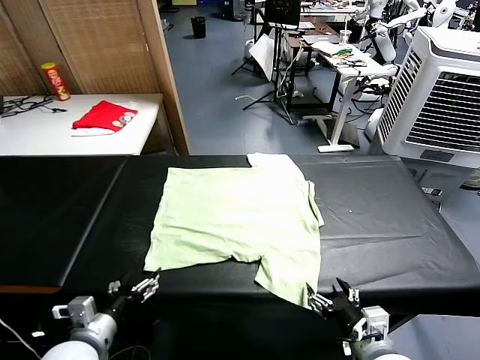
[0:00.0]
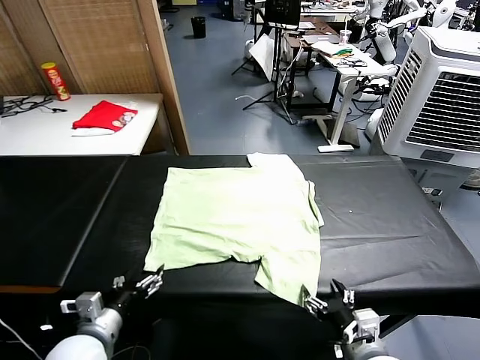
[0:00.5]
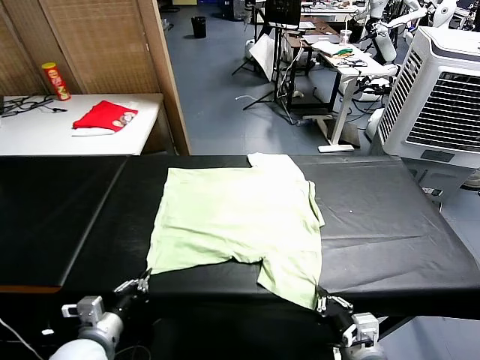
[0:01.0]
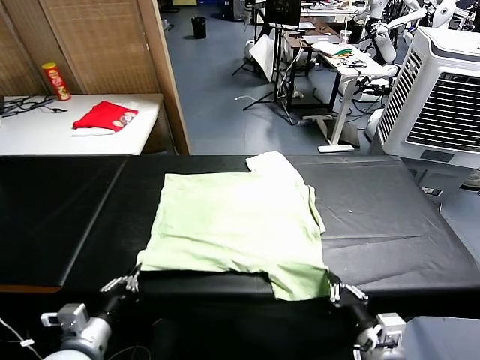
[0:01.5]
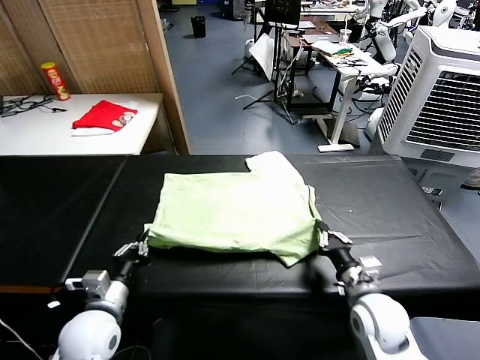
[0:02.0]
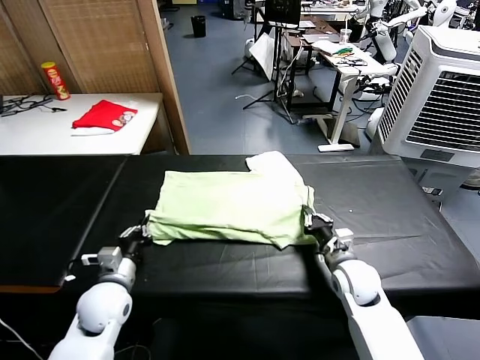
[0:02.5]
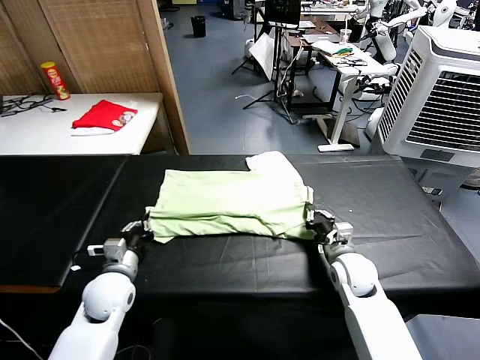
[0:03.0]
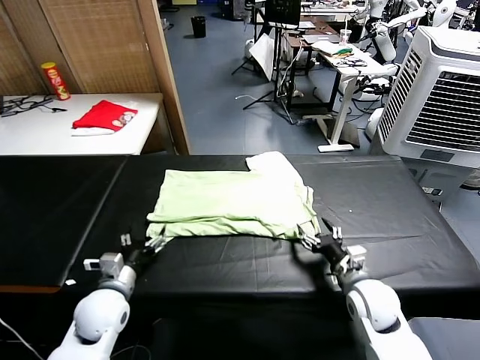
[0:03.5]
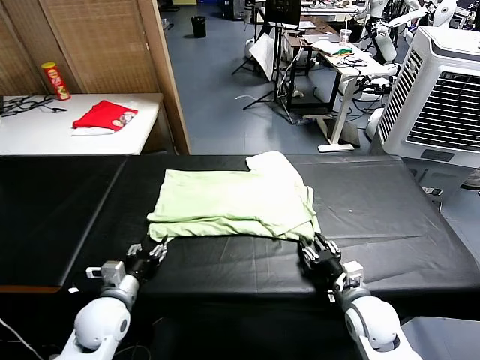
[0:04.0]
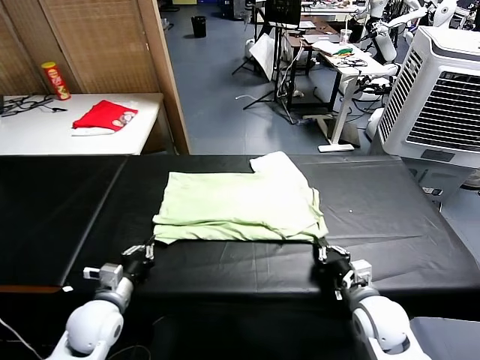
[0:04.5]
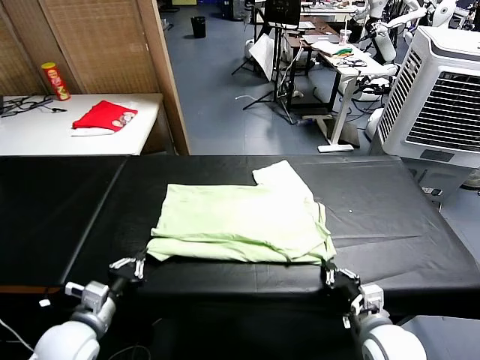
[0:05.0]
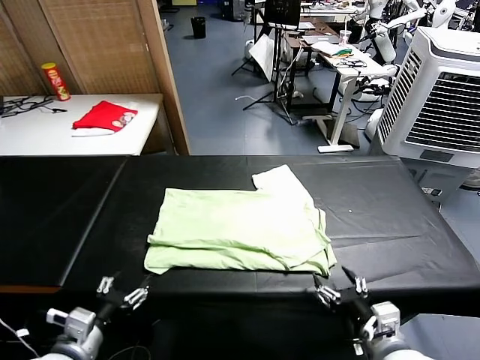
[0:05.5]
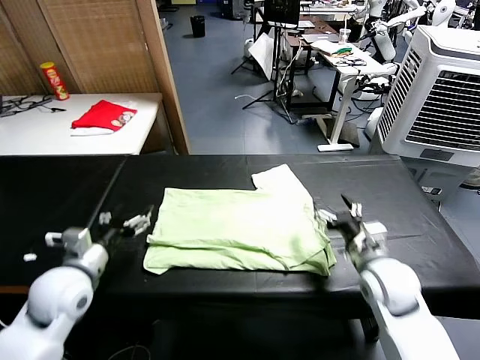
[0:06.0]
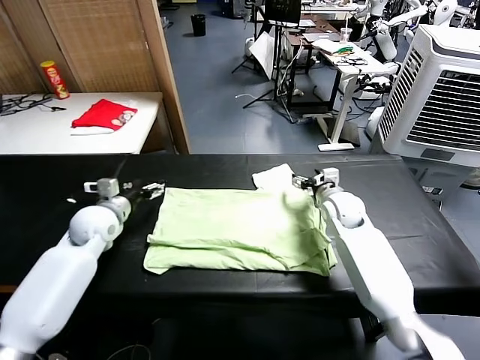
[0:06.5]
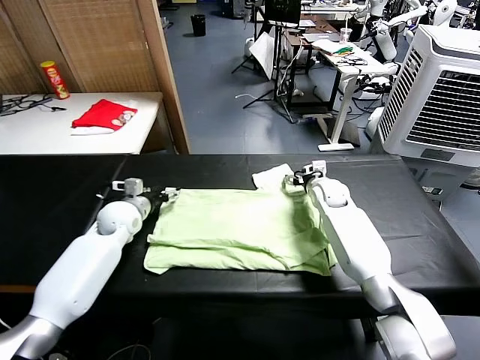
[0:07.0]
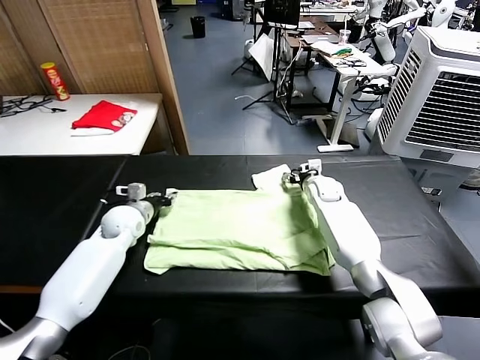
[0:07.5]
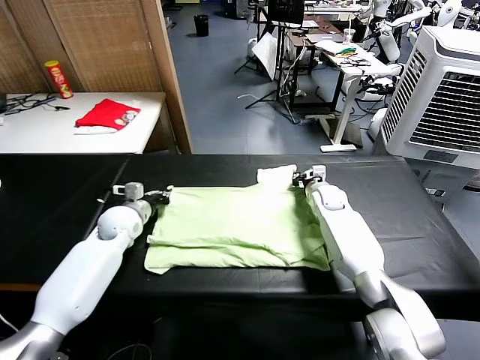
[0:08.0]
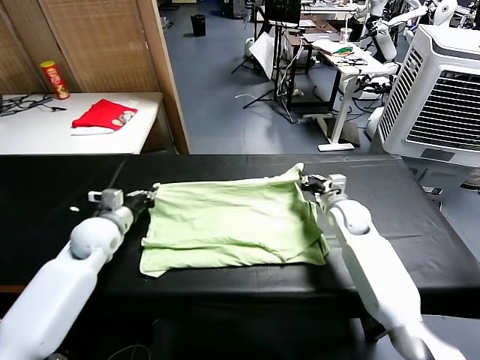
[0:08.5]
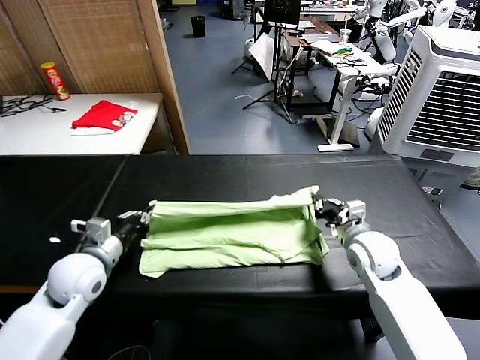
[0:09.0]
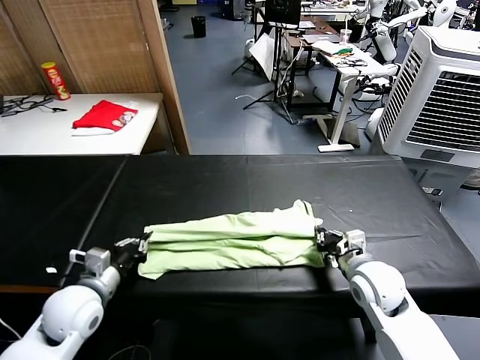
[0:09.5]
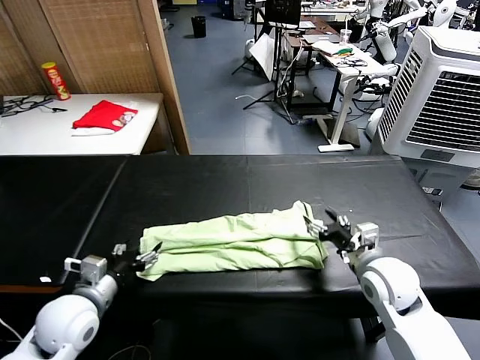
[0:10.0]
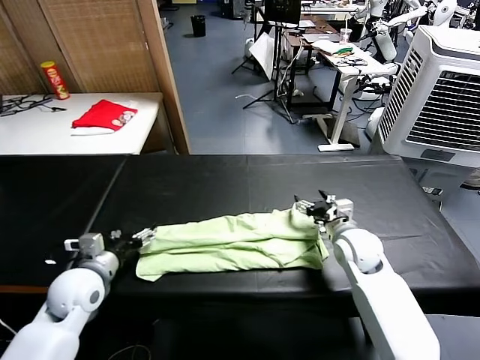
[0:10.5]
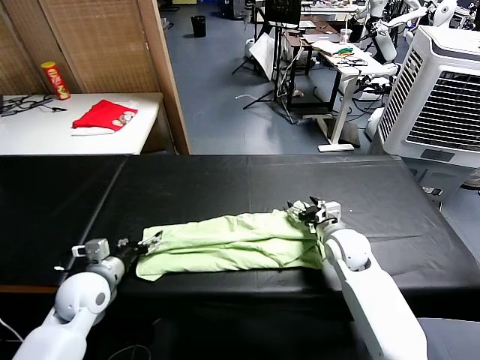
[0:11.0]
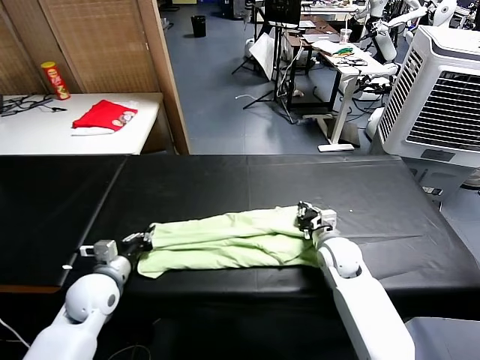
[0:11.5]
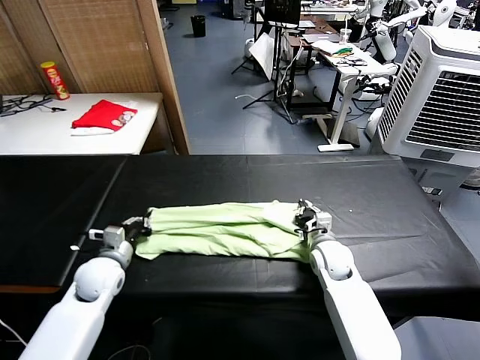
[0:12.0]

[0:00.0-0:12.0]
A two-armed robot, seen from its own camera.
Task of the whole recording: fold and organize the clothes.
Step, 0:00.0 to 0:01.0: use both grippers simultaneously to clamp the lower edge of the clothing fabric.
Step, 0:01.5 to 0:03.0: use both grippers to drag the lower edge of the fabric forward and fold it over the upper edge.
Step, 0:03.5 to 0:05.5: Drag the clothes downward with both gripper.
Step, 0:06.0 to 0:07.5: use both grippers simultaneously to clamp the upper edge of the clothing fabric.
Step, 0:08.0 to 0:10.0: use both grippers to drag the upper edge of the fabric backward and fold it over the lower edge.
0:02.0 to 0:04.0: The right gripper goes approximately 5 cm backward, and opens, then closes again, while the left gripper opens up.
0:04.0 to 0:06.0: The right gripper heads forward and upward, covering approximately 15 cm, and opens; the left gripper travels upward by some 10 cm, goes backward and returns, roughly 10 cm each way, and opens its fingers.
0:06.0 to 0:08.0: The right gripper heads forward and downward, covering some 15 cm, and closes; the left gripper moves forward, about 15 cm, and closes.
0:08.0 to 0:10.0: Both grippers move backward, some 20 cm. The left gripper opens. The right gripper opens its fingers.
0:10.0 to 0:12.0: The right gripper travels downward, forward and to the left by roughly 15 cm, and closes up, while the left gripper moves forward and downward, about 15 cm, and closes its fingers.

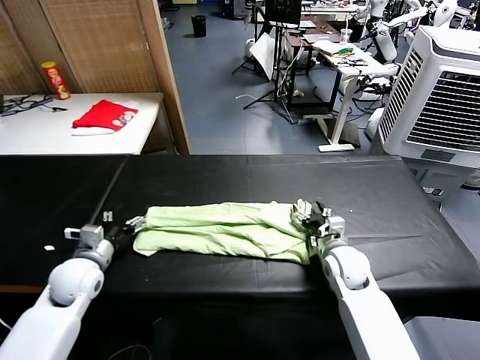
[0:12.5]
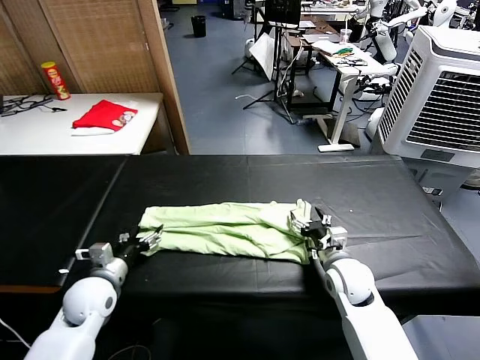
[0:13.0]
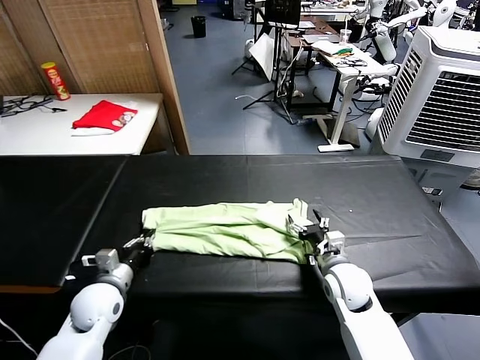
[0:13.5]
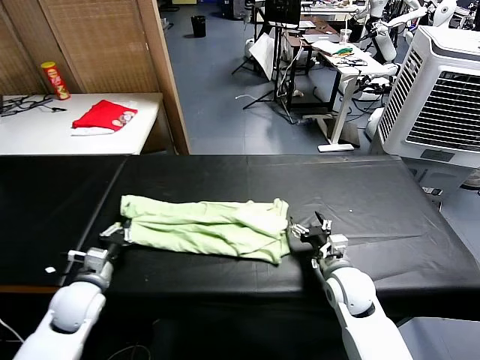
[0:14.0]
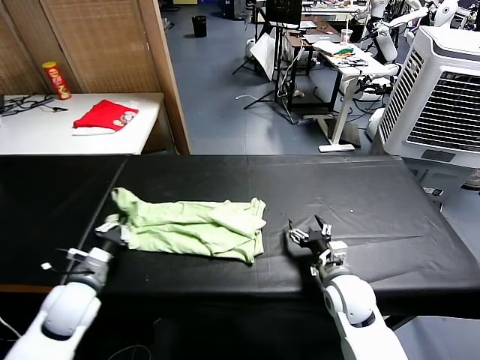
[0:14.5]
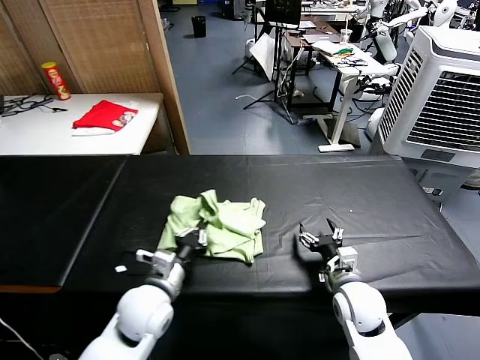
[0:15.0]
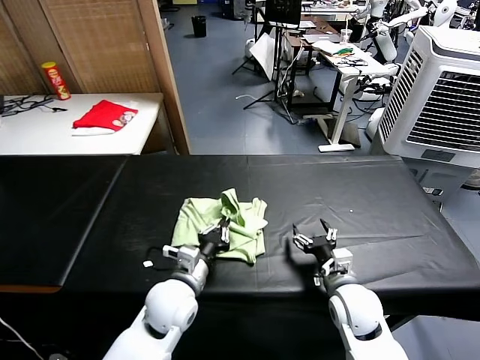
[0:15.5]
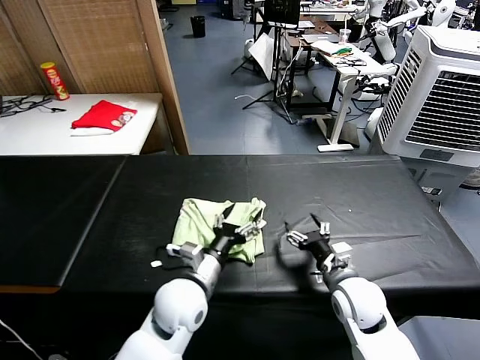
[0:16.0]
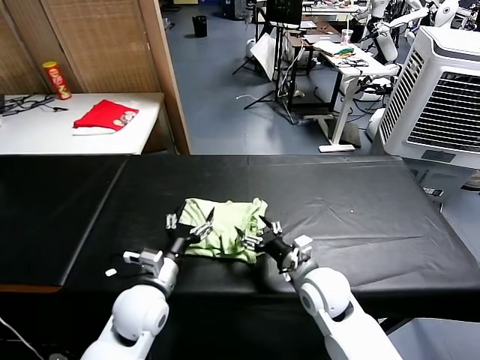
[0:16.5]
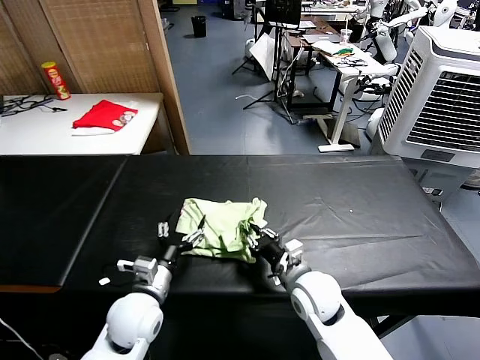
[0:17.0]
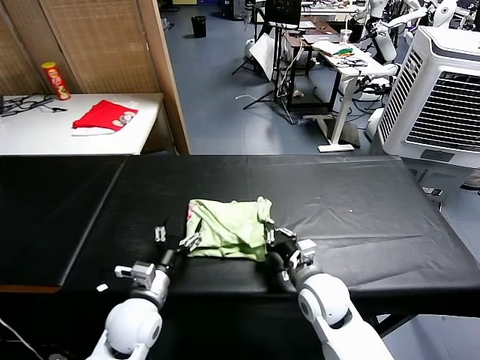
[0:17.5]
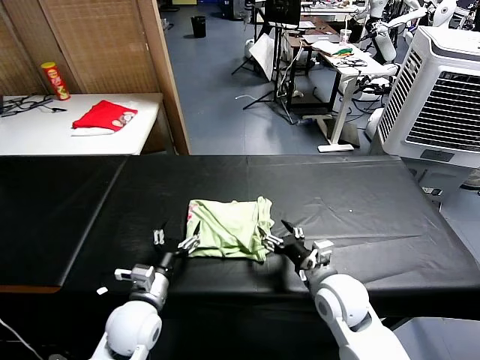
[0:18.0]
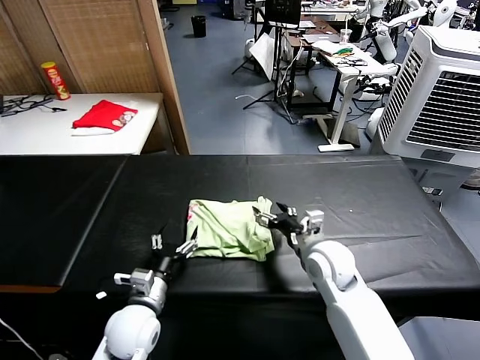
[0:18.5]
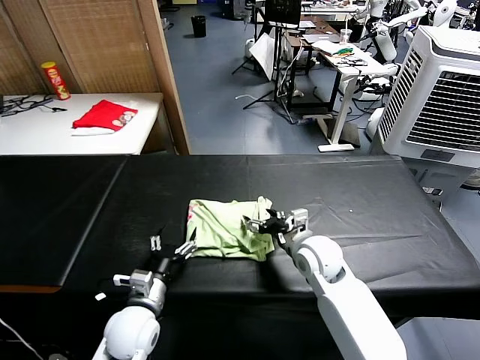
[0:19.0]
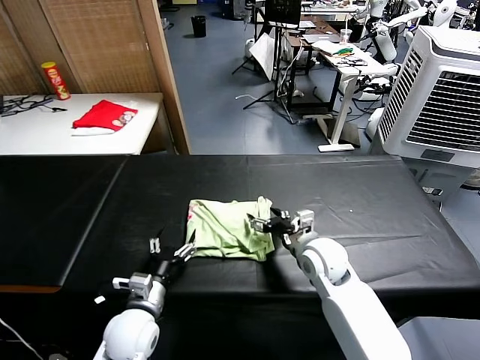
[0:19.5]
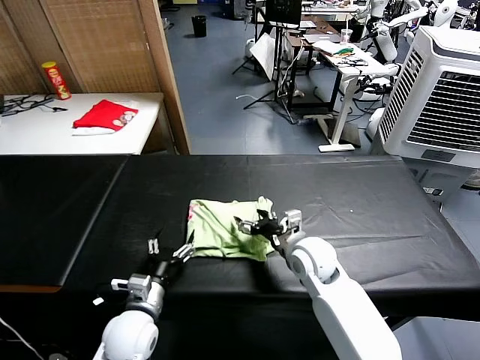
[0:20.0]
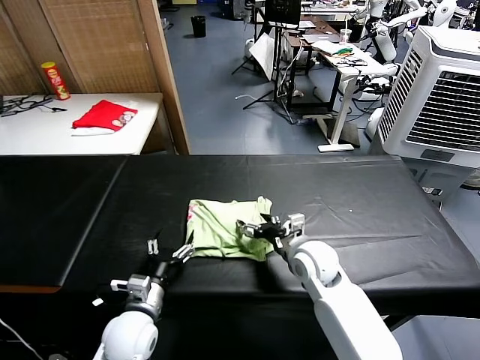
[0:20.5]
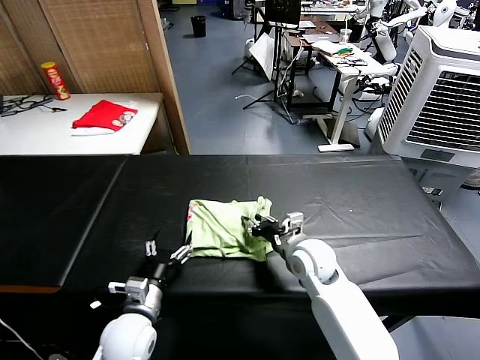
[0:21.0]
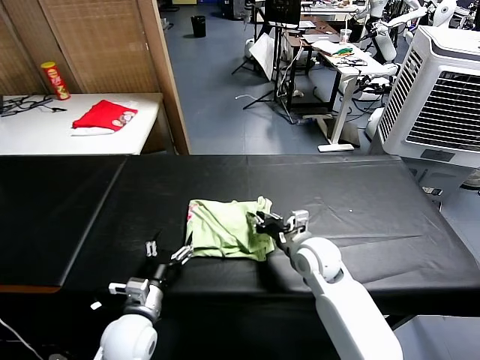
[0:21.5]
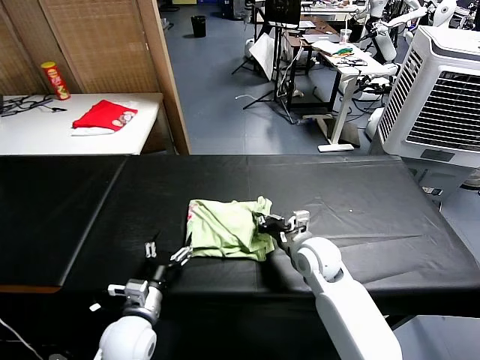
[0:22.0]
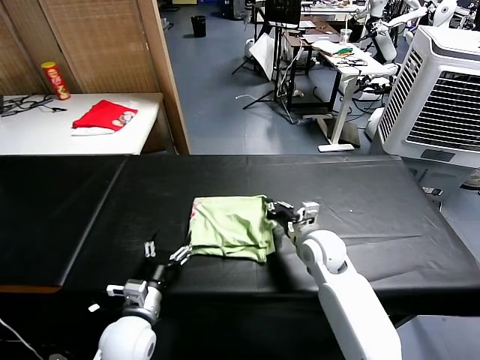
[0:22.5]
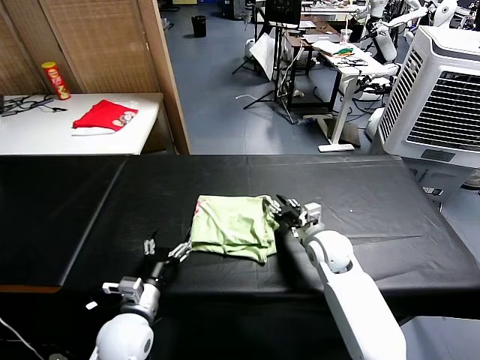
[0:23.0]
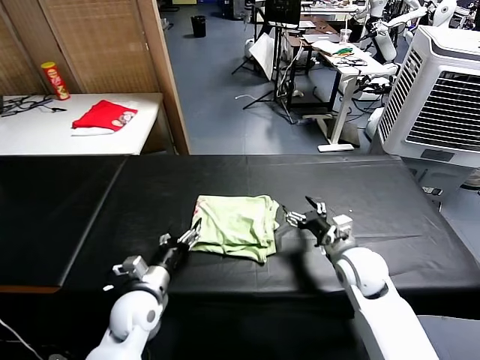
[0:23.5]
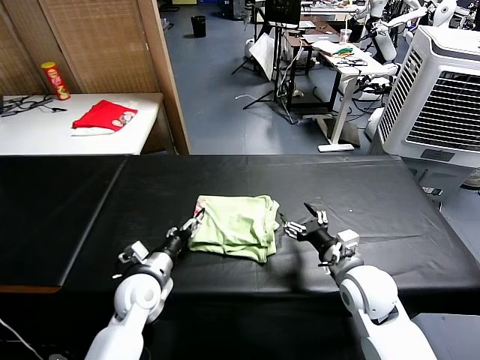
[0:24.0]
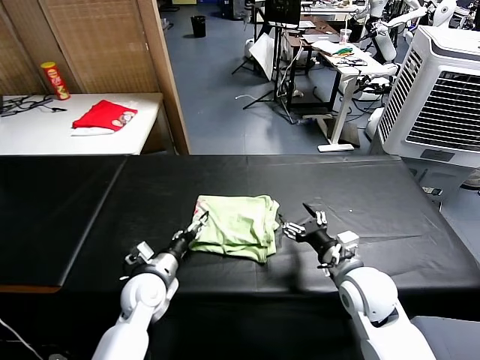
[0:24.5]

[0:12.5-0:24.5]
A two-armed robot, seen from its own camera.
Task of the whole recording: fold and organize the clothes.
Step, 0:13.5 to 0:15.5: use the left gripper to drag the left edge of the fabric to the left and folds it over the right edge.
0:12.5 to 0:14.5: The grippers both shift backward by some 5 cm. The left gripper closes its fingers.
0:14.5 to 0:16.5: The right gripper is displaced to the left by roughly 5 cm; the left gripper is displaced to the right by approximately 15 cm, and opens its fingers.
0:16.5 to 0:18.5: The right gripper moves forward, about 5 cm, and closes, then opens again. The left gripper moves some 5 cm.
0:18.5 to 0:20.5: The grippers make only small movements.
0:20.5 to 0:22.5: The right gripper closes up.
0:22.5 to 0:24.5: The left gripper goes approximately 10 cm forward, while the right gripper goes about 10 cm backward and to the right, and opens up.

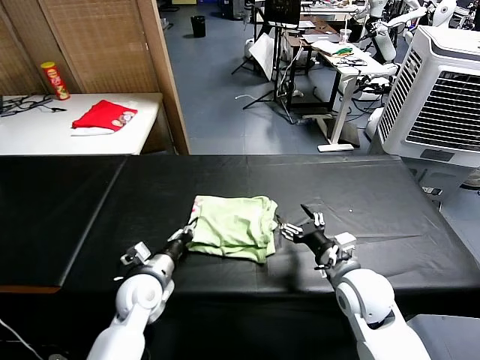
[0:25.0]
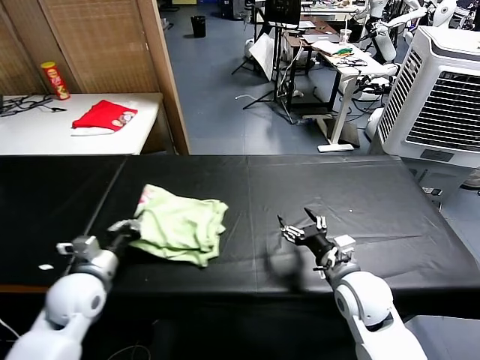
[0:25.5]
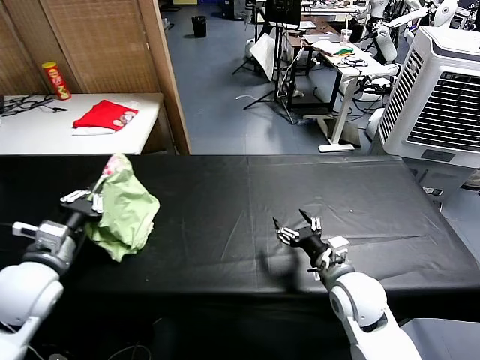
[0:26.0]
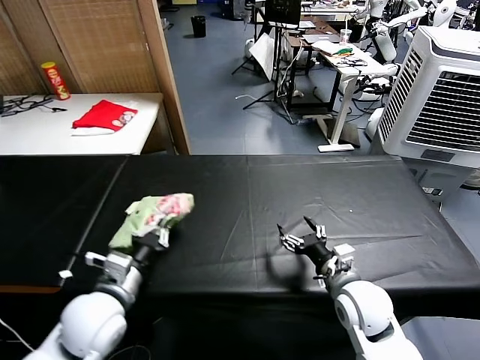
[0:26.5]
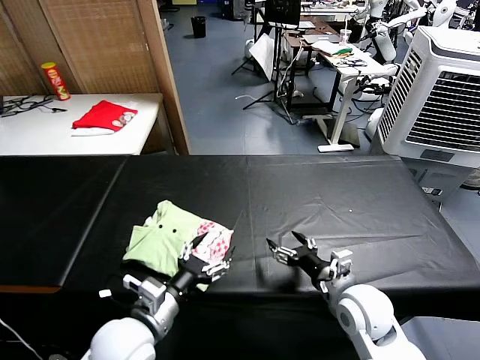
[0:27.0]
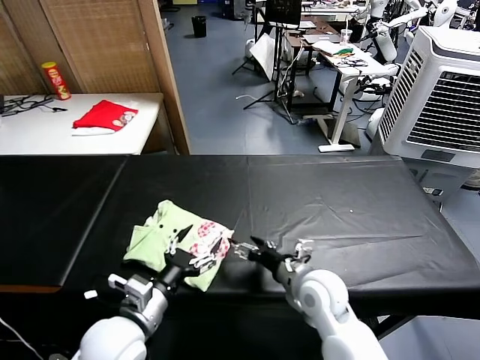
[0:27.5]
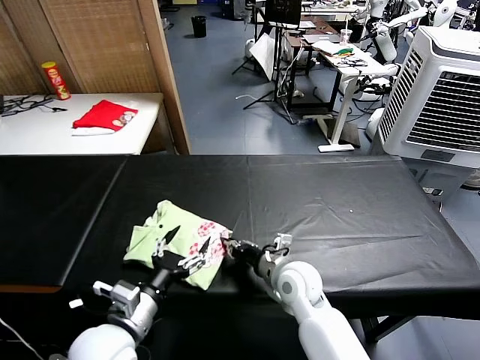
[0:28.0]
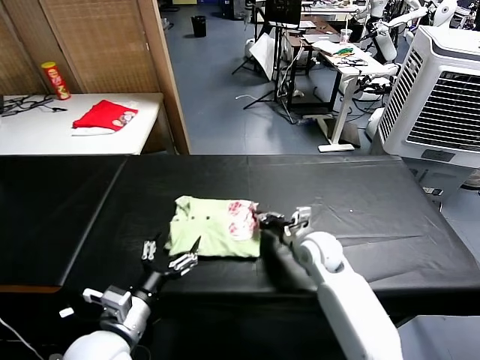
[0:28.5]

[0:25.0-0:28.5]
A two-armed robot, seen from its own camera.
Task of the whole recording: fold and organize the clothes.
0:25.0 to 0:27.0: The left gripper is displaced backward and upward by some 15 cm, and opens its fingers.
0:27.0 to 0:28.5: The right gripper moves forward, about 15 cm, and closes its fingers.
